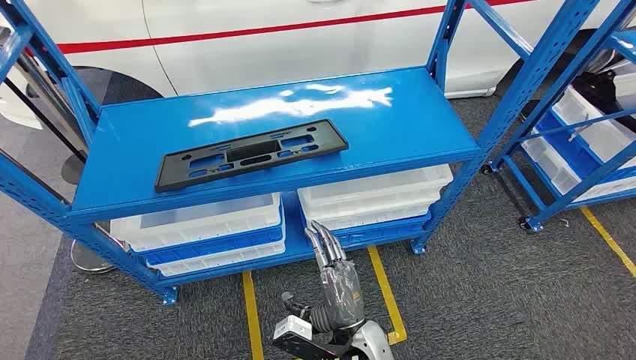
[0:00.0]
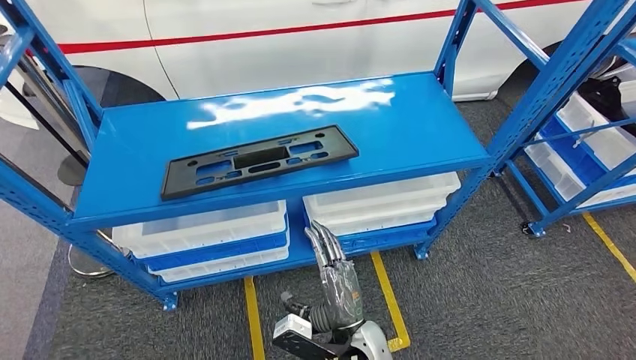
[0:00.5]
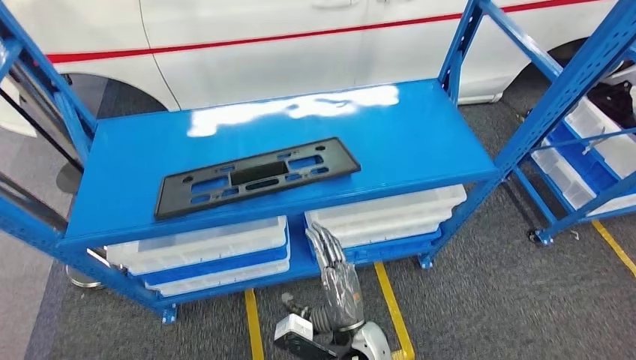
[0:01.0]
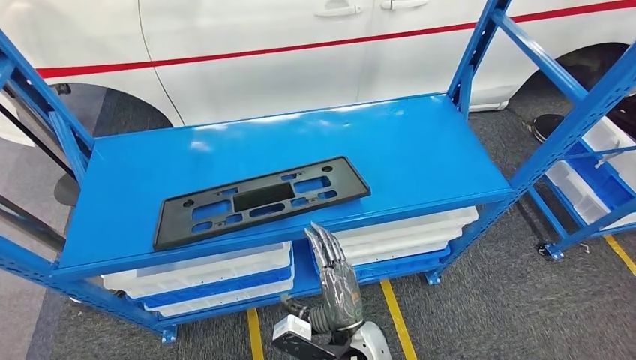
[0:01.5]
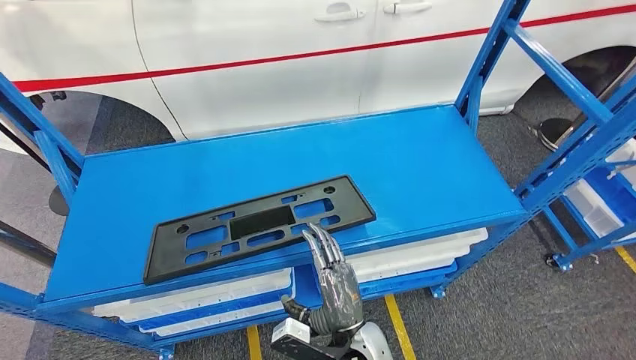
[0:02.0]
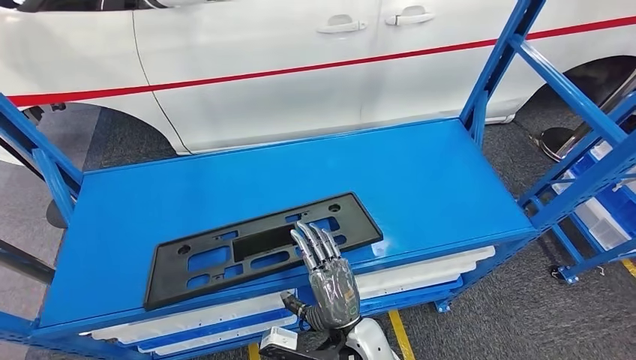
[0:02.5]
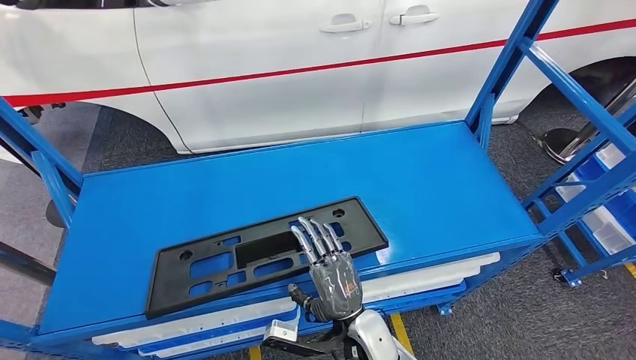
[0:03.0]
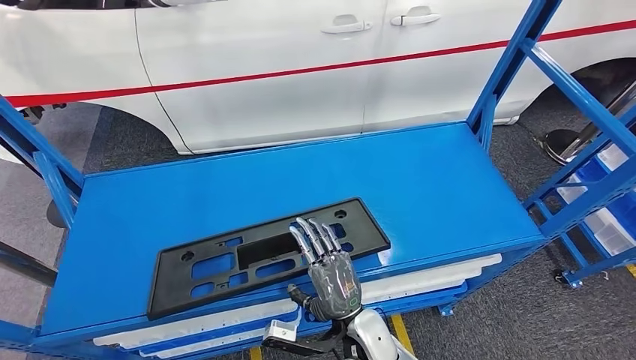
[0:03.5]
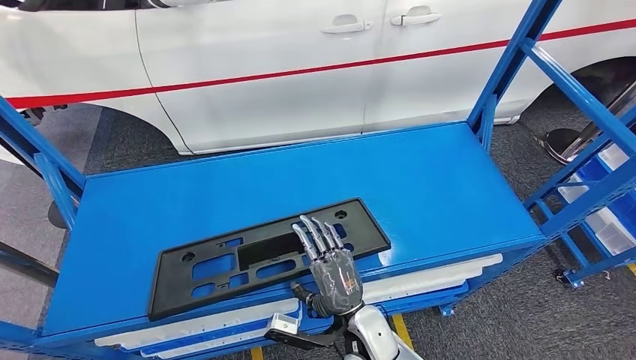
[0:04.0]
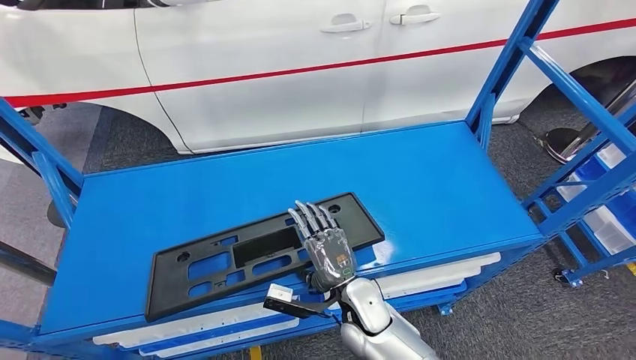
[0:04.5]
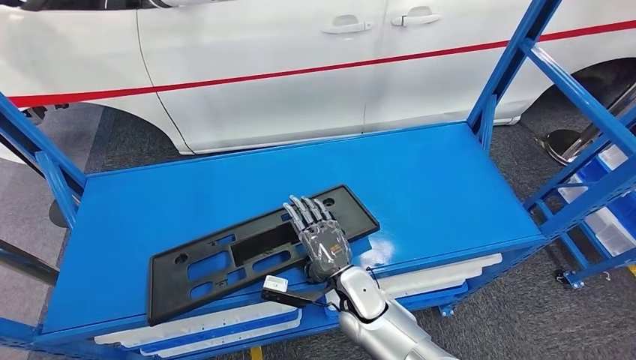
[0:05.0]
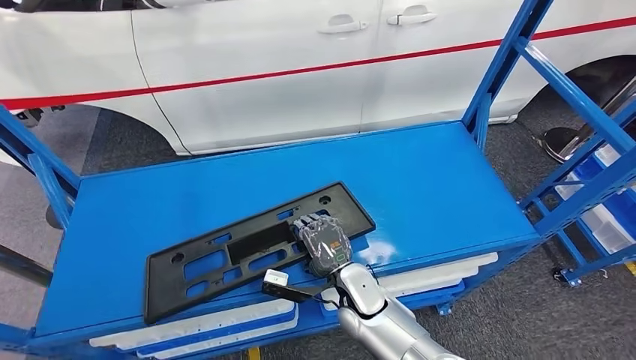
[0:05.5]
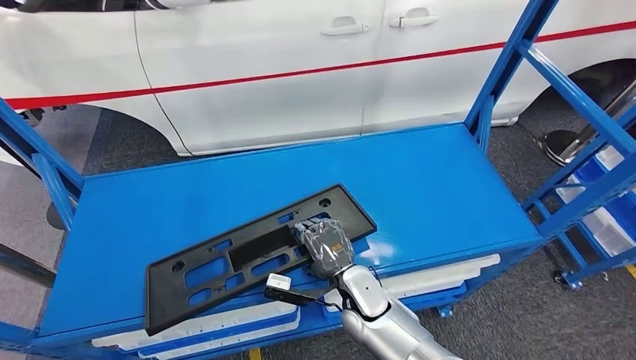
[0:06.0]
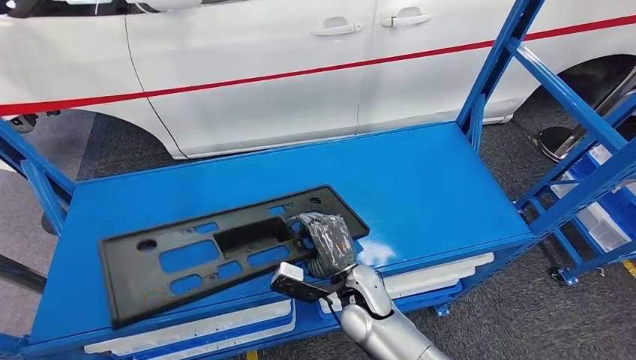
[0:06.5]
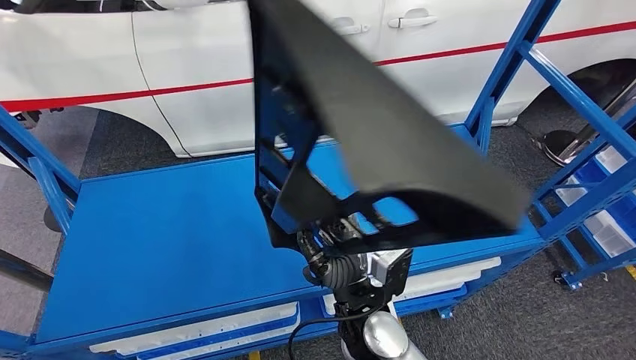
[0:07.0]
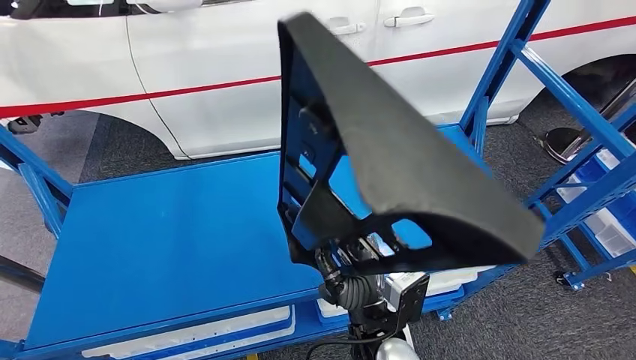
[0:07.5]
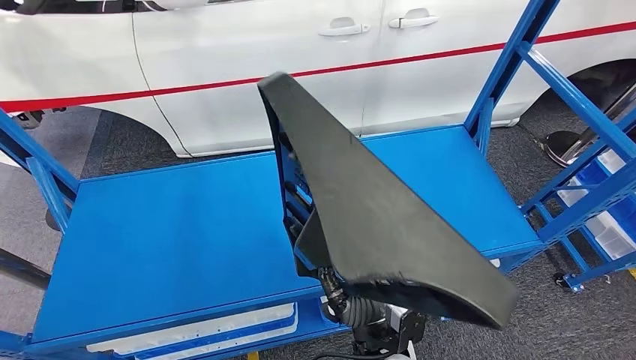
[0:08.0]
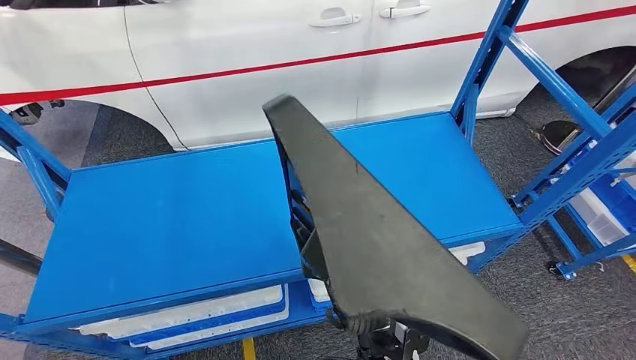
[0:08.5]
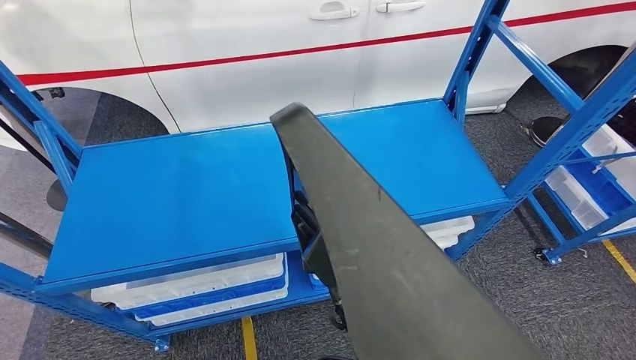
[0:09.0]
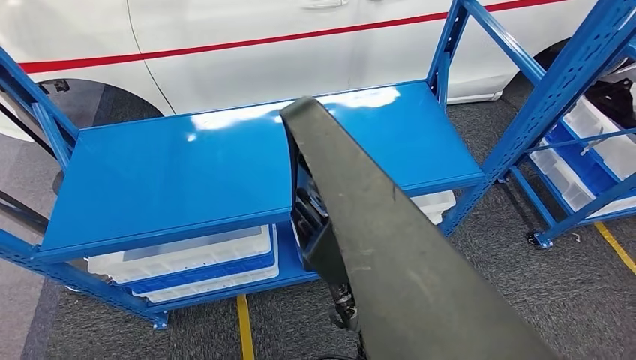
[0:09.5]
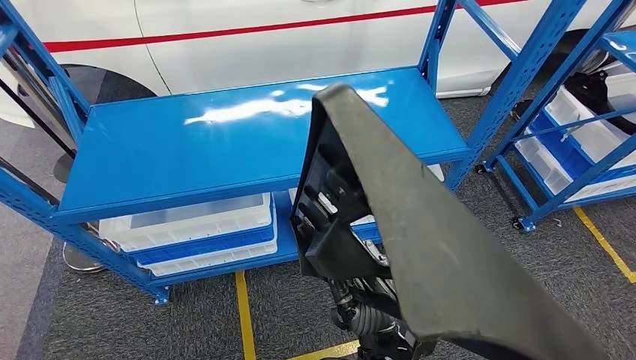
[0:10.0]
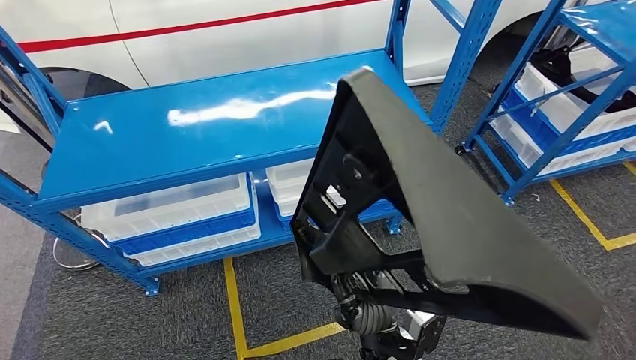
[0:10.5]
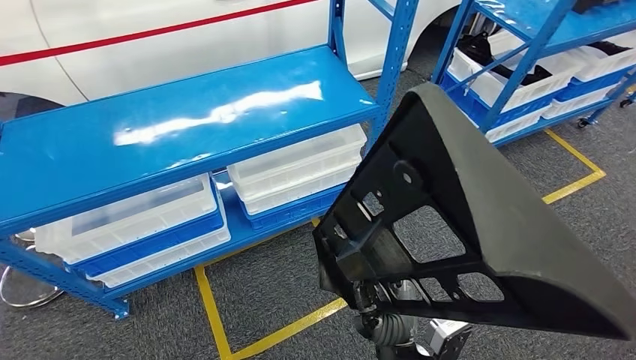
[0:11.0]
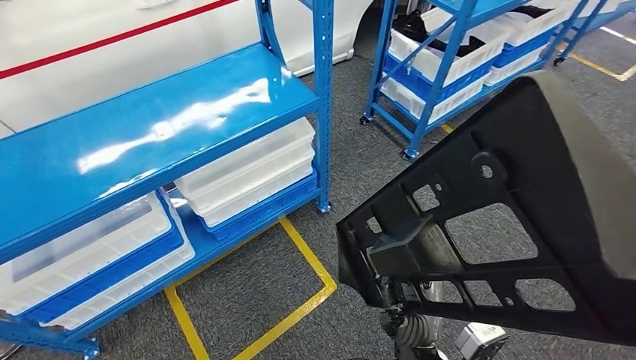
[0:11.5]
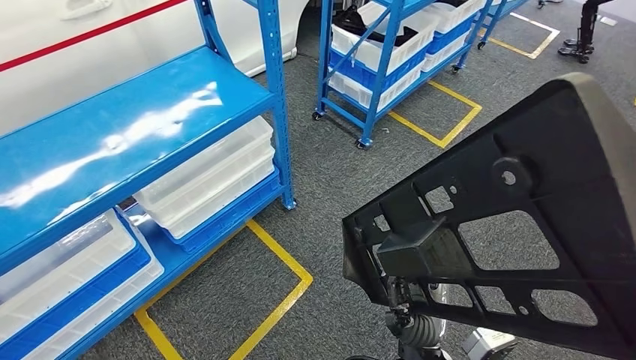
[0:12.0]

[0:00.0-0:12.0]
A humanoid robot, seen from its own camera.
Step, 0:00.0 to 0:10.5: Pick up the large material from the shelf.
0:04.0 to 0:06.0: The right hand moves forward, about 5 cm.

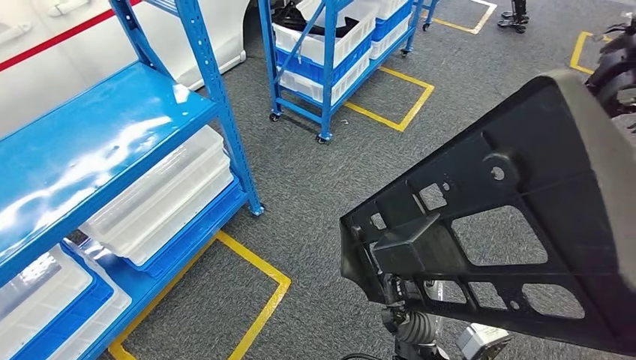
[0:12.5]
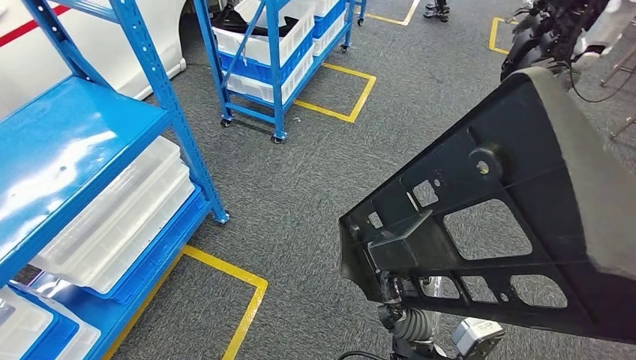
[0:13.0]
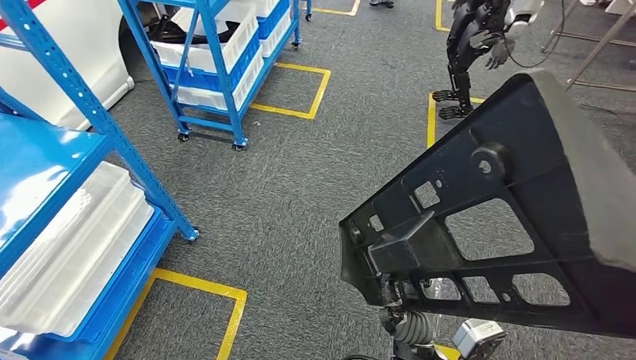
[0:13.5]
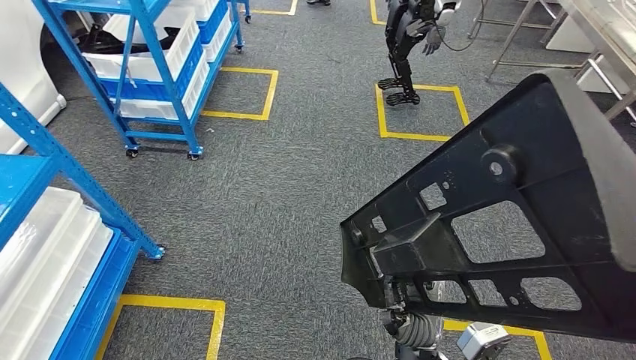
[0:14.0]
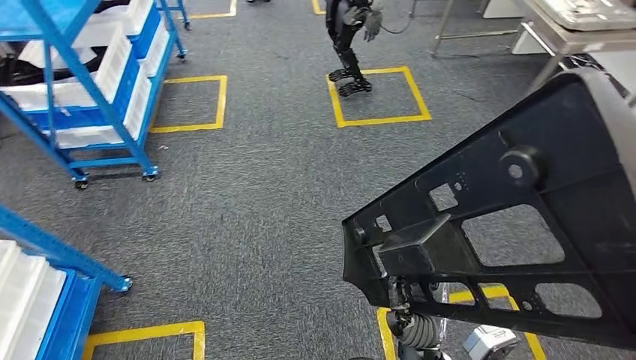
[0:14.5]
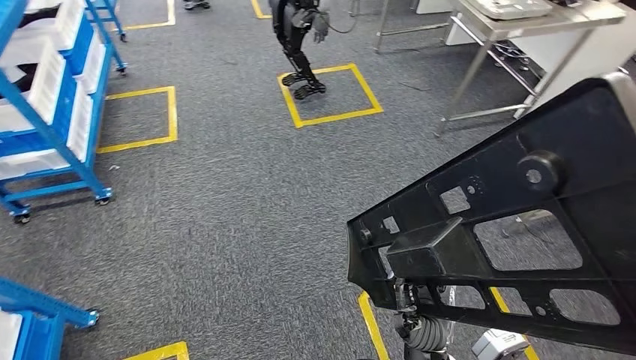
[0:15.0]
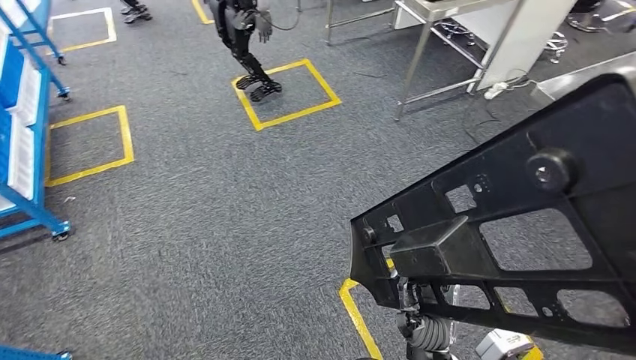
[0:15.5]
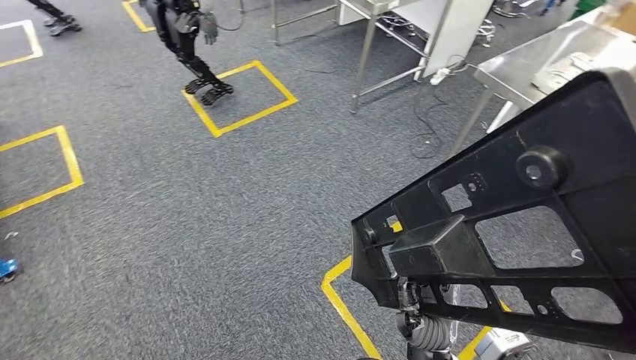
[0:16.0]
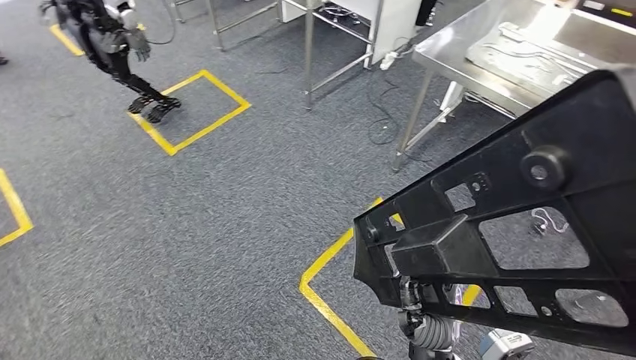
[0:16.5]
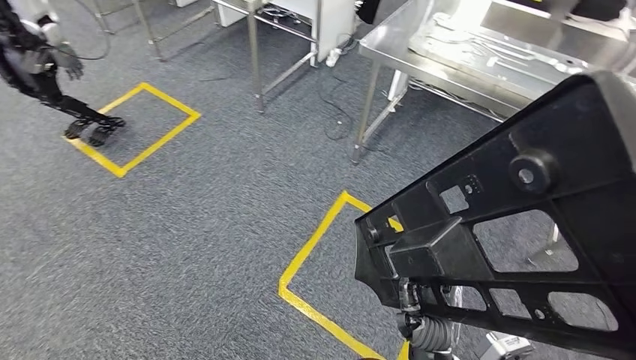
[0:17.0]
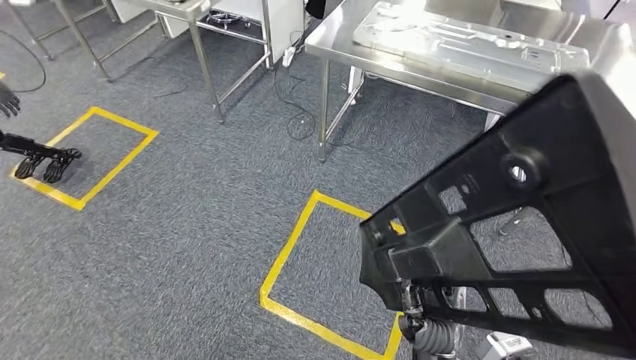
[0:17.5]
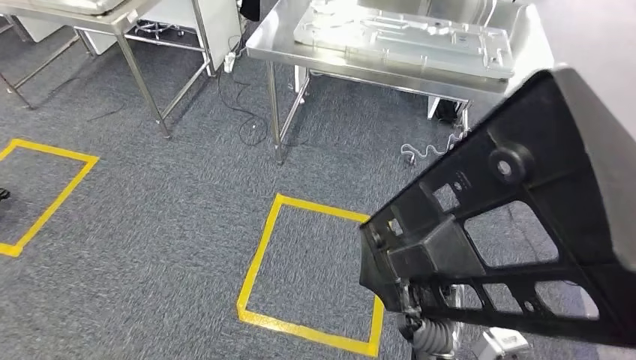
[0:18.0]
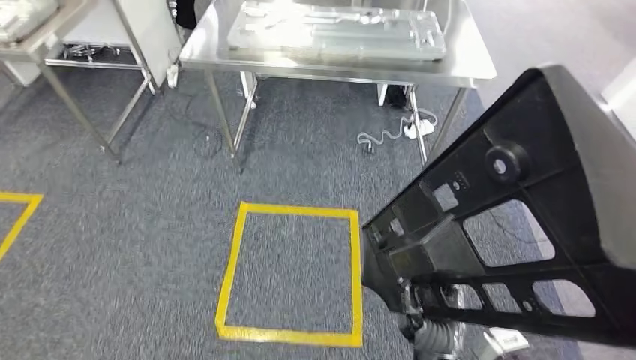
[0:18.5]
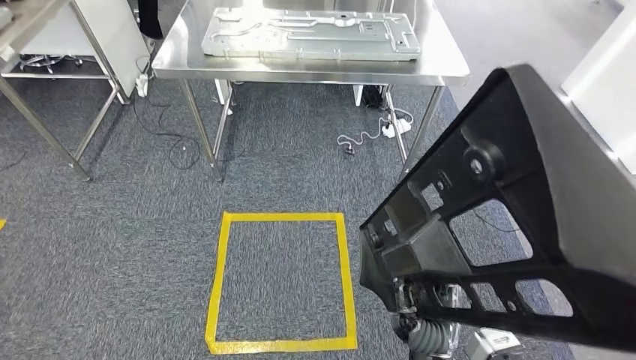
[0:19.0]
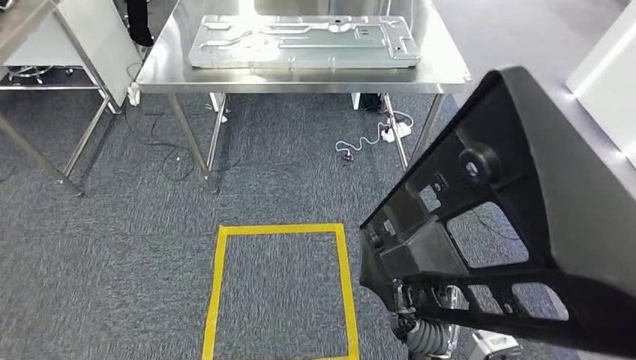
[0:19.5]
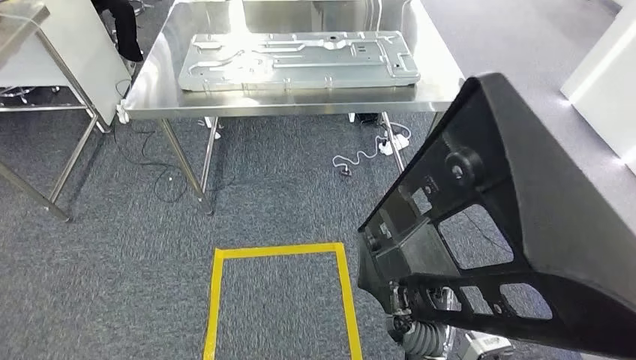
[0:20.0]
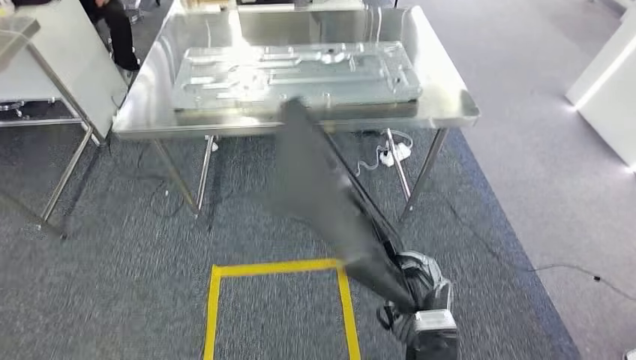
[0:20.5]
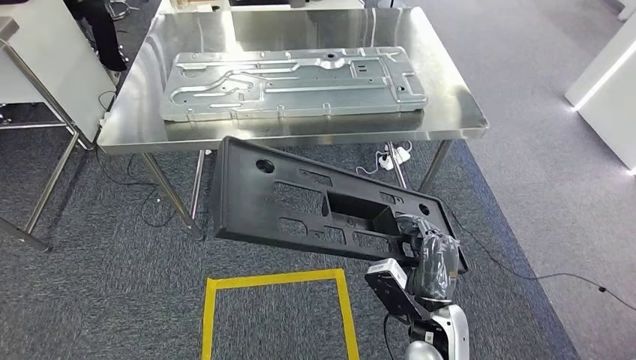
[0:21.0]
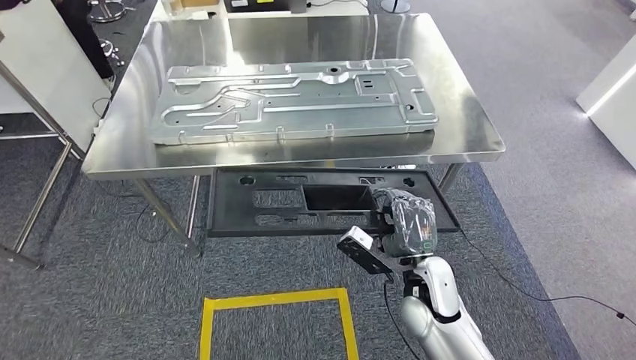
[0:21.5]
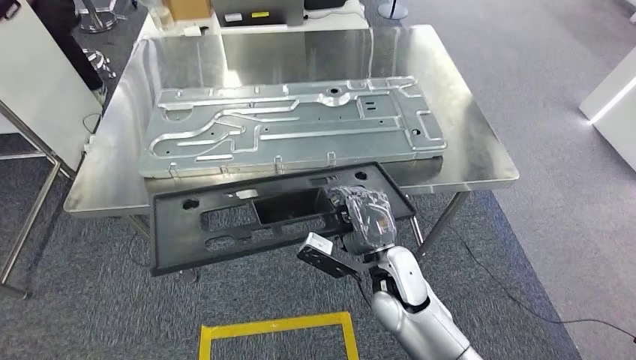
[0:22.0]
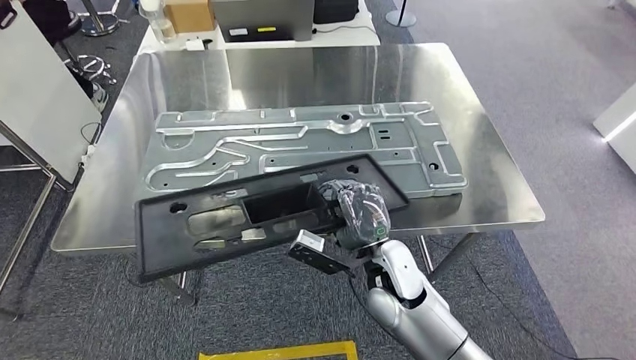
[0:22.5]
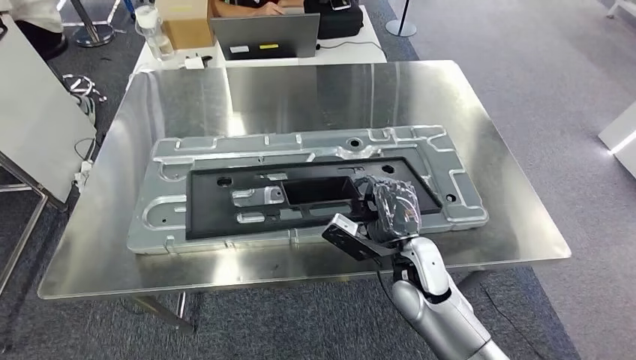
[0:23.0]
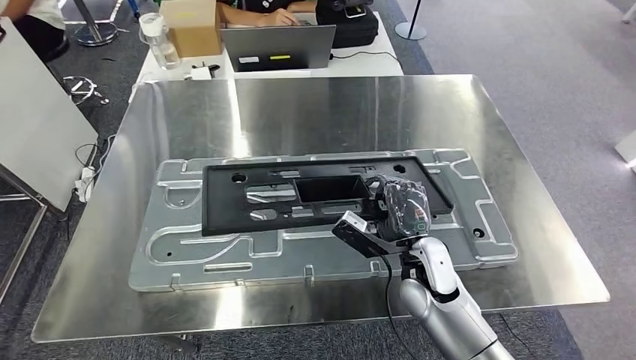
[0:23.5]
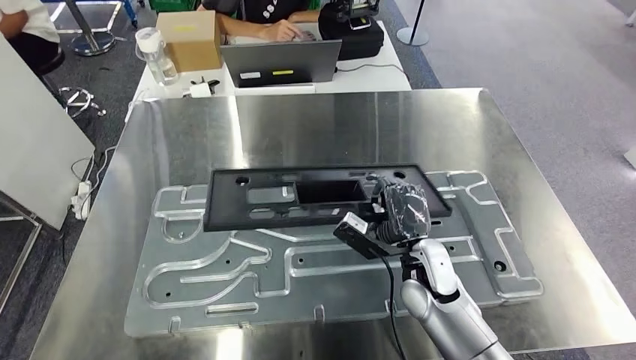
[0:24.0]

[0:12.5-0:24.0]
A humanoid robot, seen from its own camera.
Step, 0:12.5 to 0:21.0: Move the large material to the workbench.
